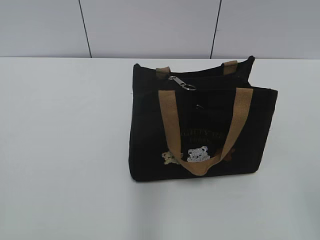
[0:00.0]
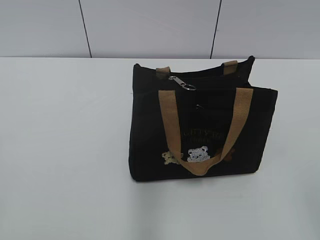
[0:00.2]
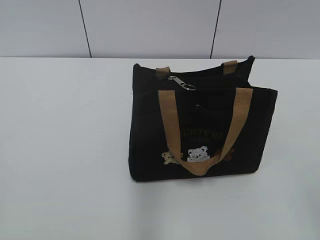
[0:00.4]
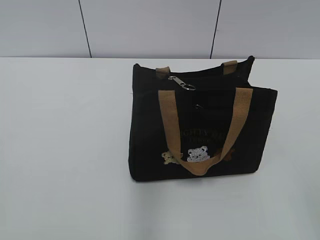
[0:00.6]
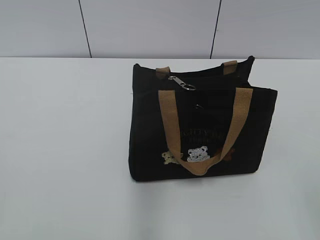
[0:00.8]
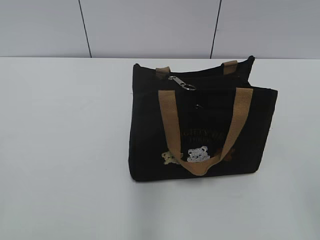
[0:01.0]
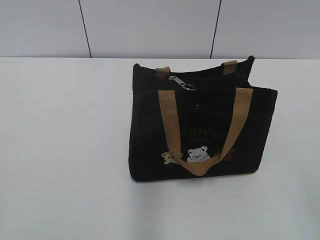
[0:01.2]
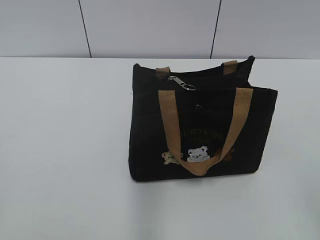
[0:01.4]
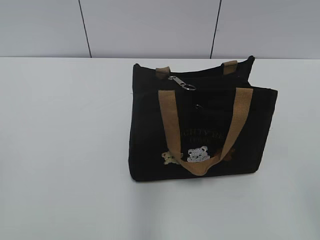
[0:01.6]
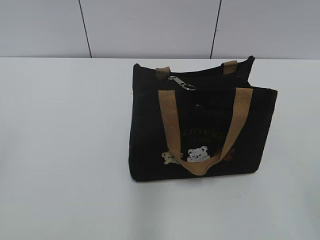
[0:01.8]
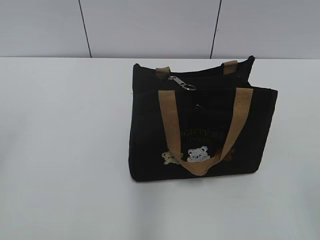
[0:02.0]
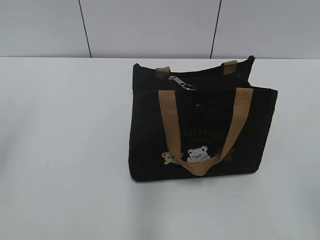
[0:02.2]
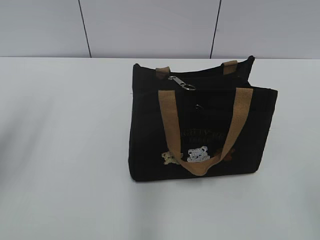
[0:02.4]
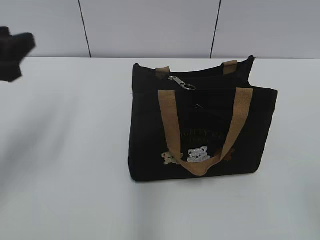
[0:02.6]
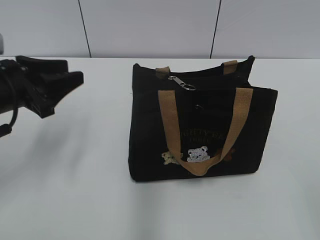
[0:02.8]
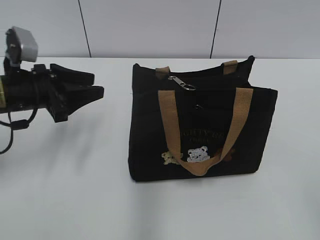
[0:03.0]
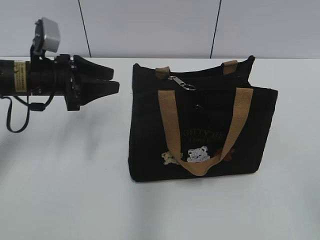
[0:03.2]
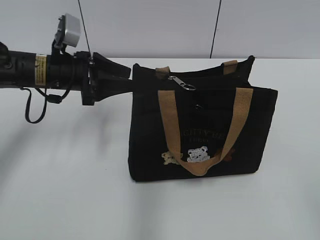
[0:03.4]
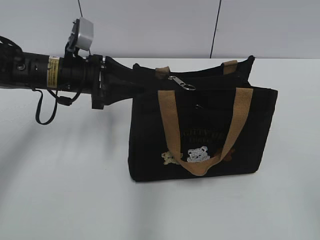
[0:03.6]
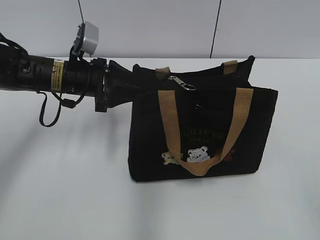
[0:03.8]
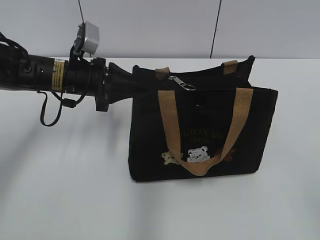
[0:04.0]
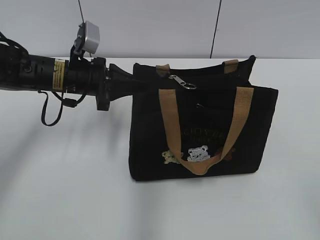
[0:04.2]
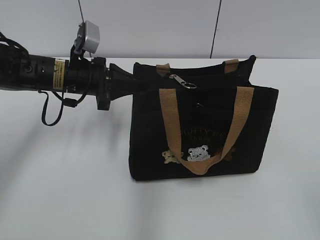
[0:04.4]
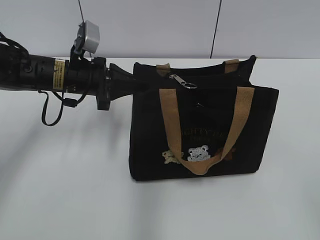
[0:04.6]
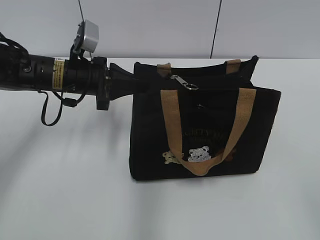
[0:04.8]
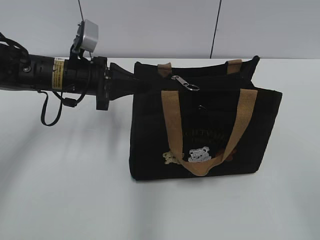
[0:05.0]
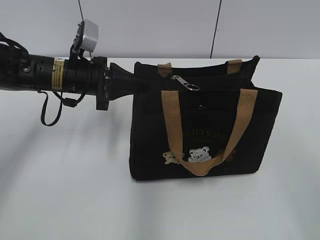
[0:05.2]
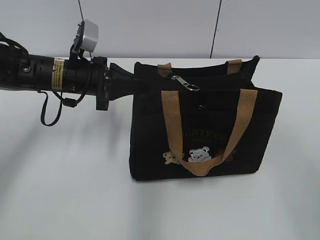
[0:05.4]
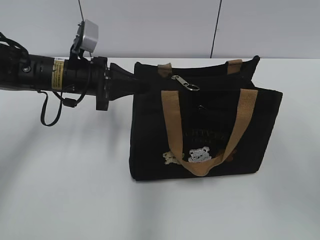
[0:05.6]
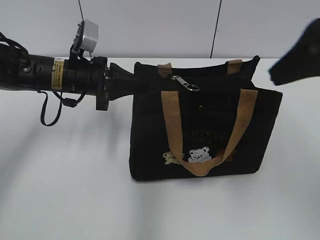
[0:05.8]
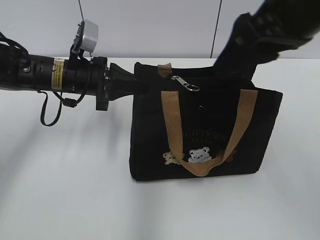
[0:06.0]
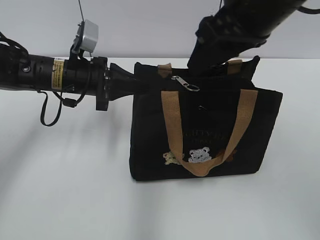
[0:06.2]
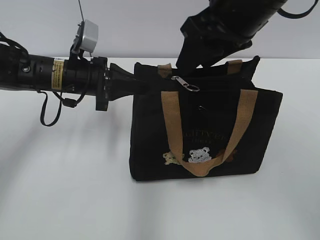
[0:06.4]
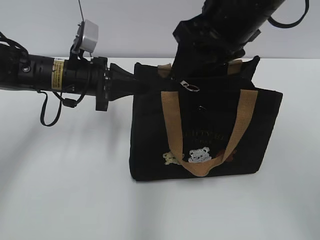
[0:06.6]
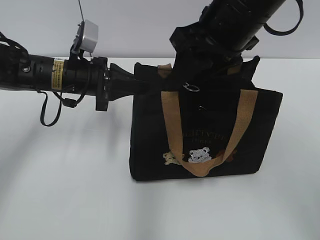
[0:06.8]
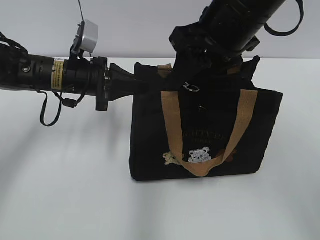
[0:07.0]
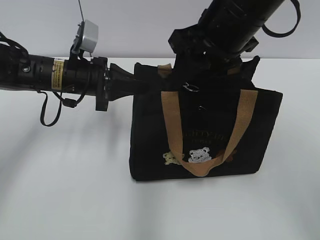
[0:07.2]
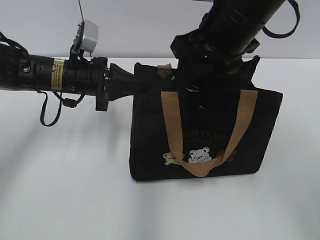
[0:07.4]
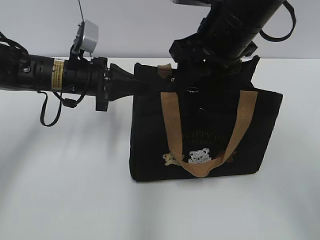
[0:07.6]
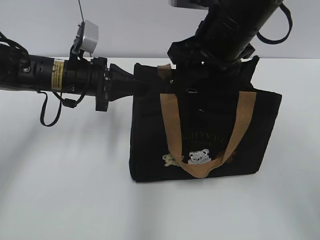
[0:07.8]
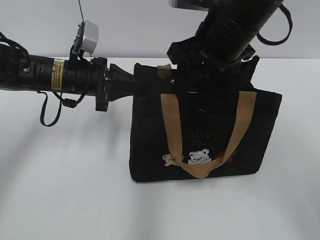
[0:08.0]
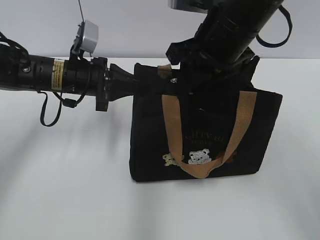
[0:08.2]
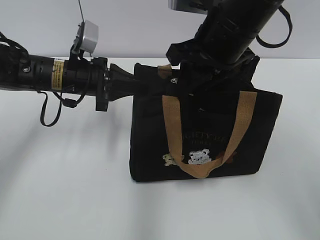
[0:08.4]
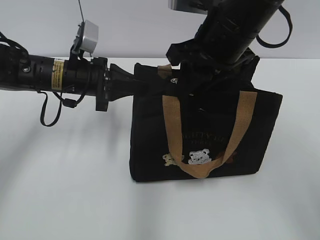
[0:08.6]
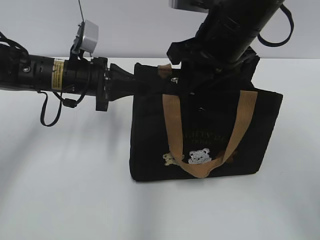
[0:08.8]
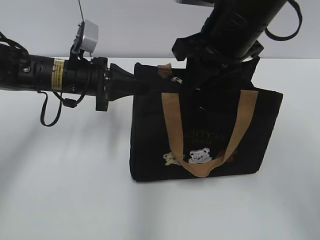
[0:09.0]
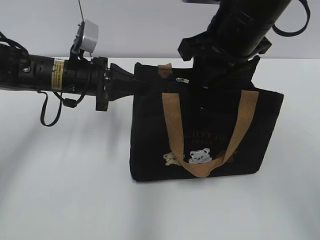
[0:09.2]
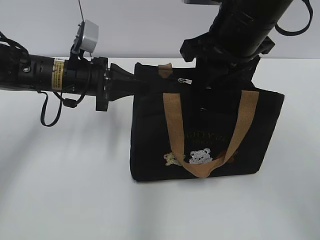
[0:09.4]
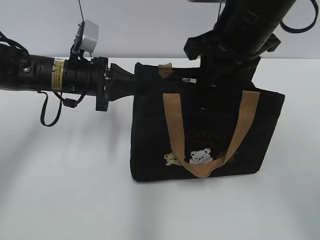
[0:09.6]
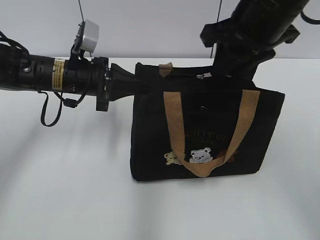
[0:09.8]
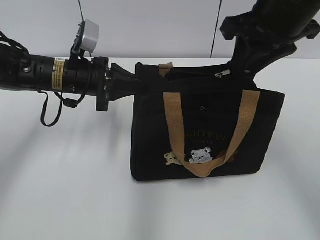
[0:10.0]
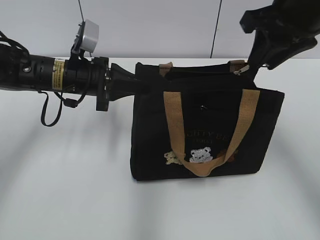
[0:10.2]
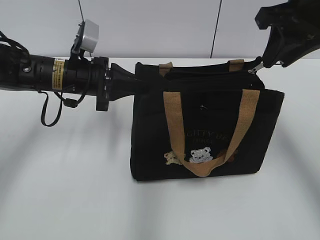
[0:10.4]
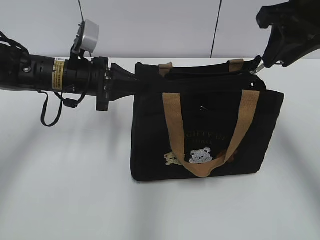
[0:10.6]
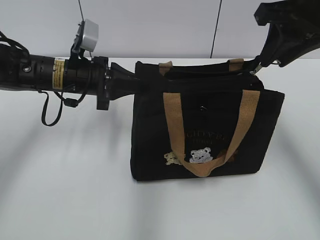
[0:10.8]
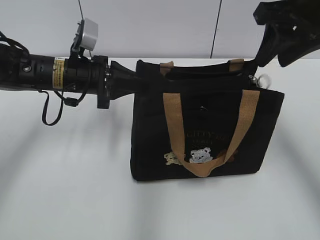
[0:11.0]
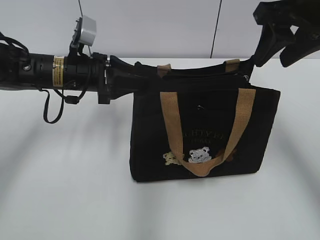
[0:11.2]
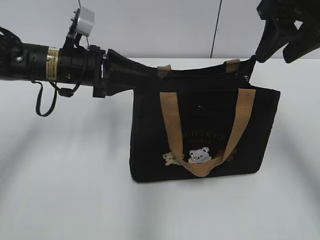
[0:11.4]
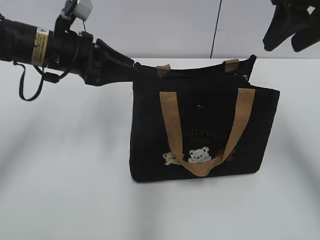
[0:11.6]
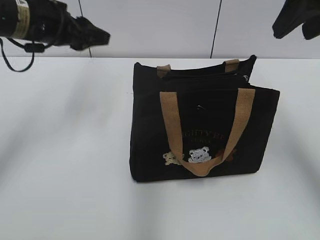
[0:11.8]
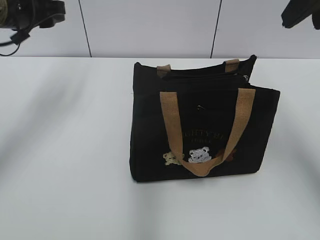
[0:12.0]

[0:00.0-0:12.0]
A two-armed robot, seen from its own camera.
Step, 0:00.0 to 0:10.8: Pull open the zipper with your right hand.
Step, 0:11.2 to 0:11.4: Hold the bag with your left hand.
0:01.6 to 0:03.0: The left gripper travels forward by approximately 30 cm.
0:03.0 to 0:04.4: The left gripper travels to the right and forward by roughly 10 cm, and closes its fingers.
0:04.4 to 0:06.0: The right gripper moves forward and to the left, about 30 cm.
0:06.0 to 0:07.6: The right gripper goes approximately 10 cm forward, to the left and downward.
0:07.6 to 0:09.0: The right gripper closes its fingers.
0:09.0 to 0:10.4: The right gripper travels to the right by some 10 cm.
0:10.4 to 0:12.0: The right gripper heads upward, covering some 5 cm, and opens its fingers. Meanwhile the left gripper moves upward and to the left, some 15 cm, and opens up.

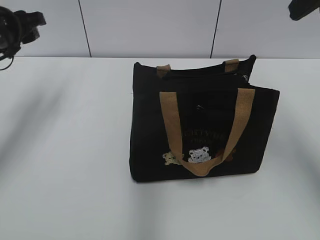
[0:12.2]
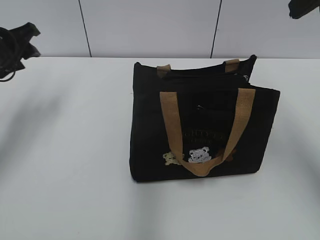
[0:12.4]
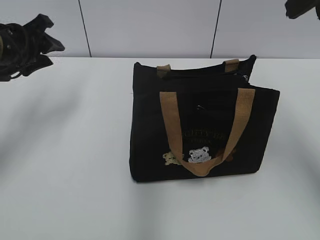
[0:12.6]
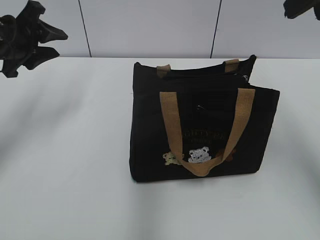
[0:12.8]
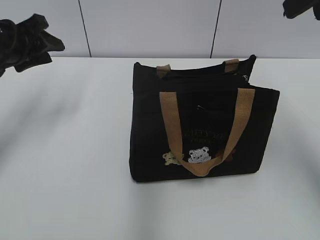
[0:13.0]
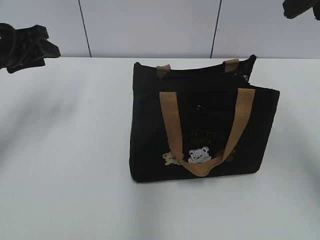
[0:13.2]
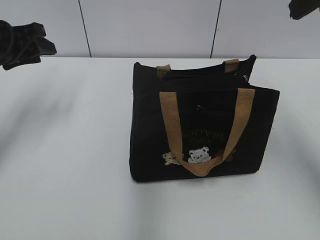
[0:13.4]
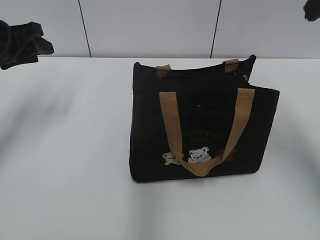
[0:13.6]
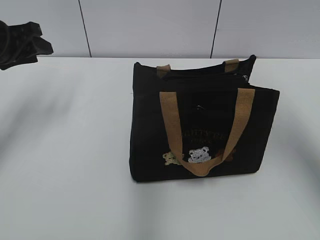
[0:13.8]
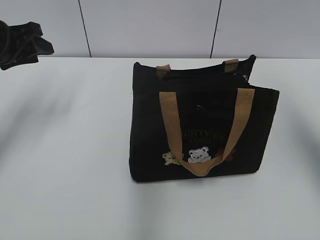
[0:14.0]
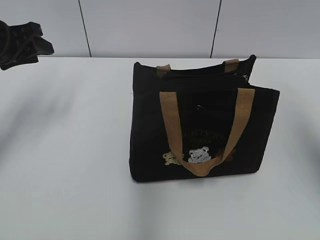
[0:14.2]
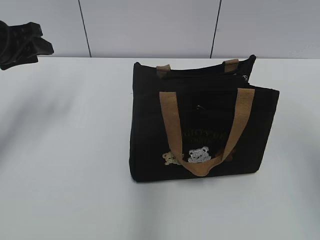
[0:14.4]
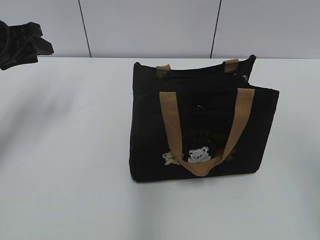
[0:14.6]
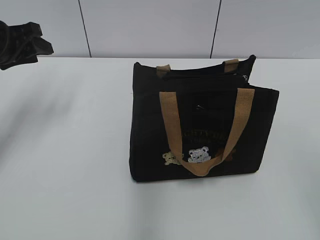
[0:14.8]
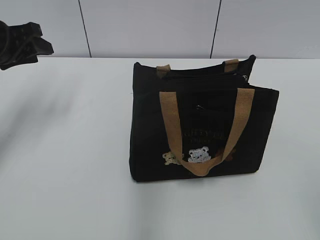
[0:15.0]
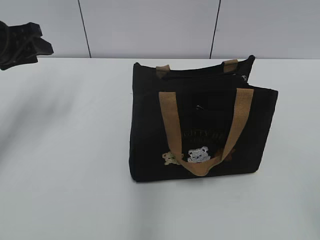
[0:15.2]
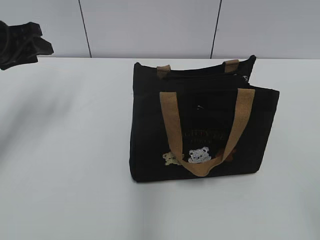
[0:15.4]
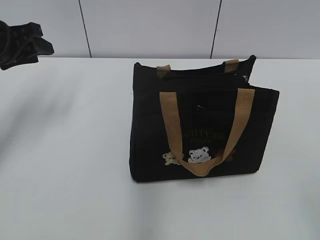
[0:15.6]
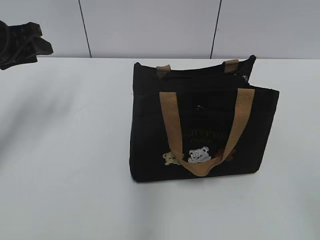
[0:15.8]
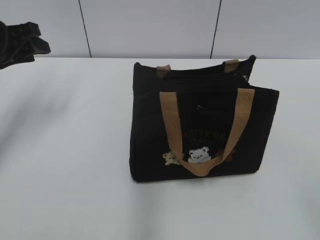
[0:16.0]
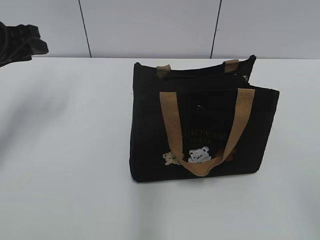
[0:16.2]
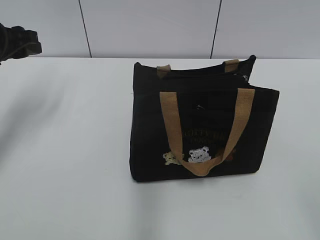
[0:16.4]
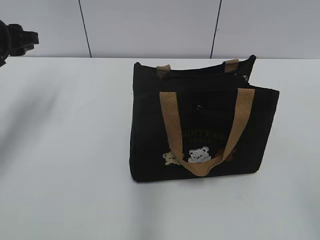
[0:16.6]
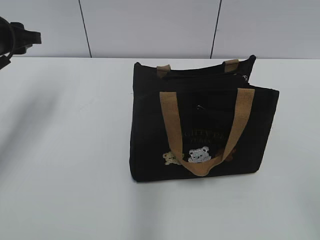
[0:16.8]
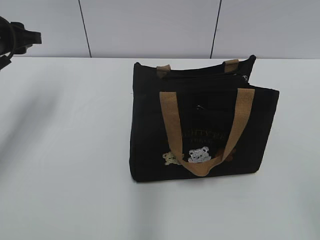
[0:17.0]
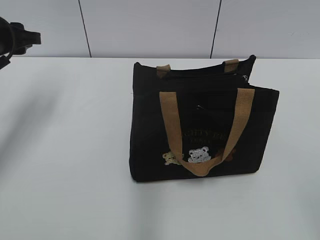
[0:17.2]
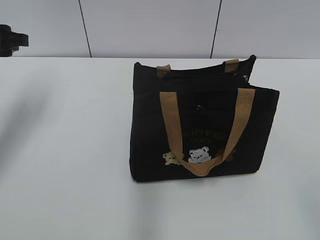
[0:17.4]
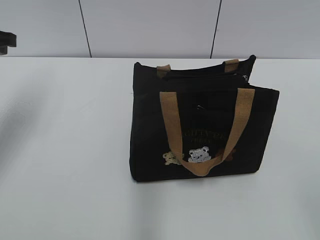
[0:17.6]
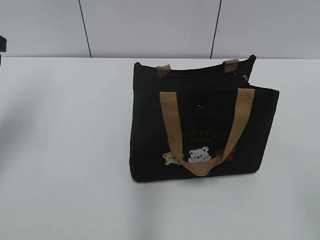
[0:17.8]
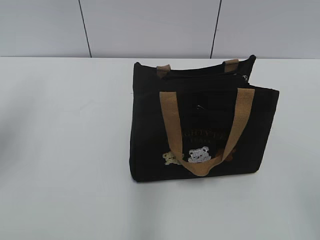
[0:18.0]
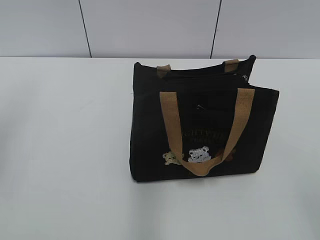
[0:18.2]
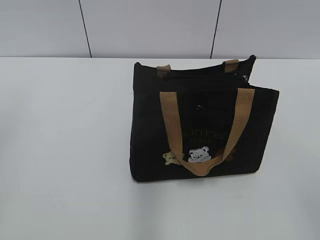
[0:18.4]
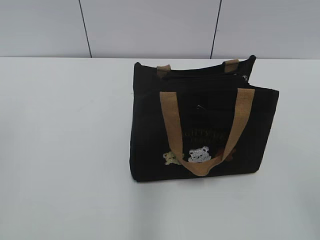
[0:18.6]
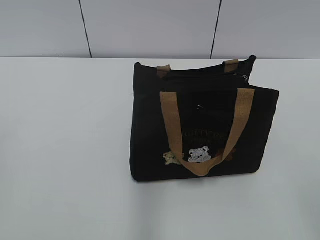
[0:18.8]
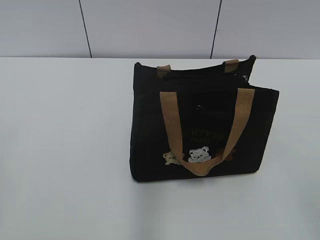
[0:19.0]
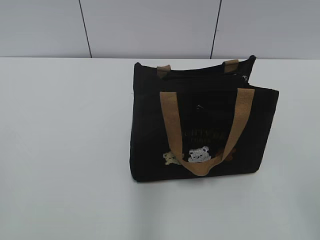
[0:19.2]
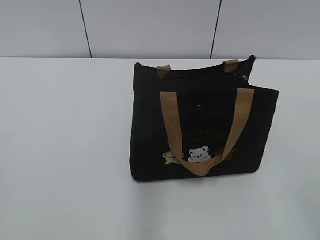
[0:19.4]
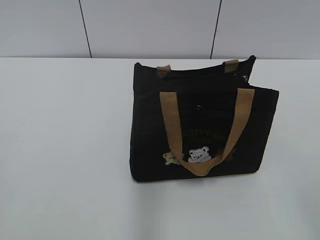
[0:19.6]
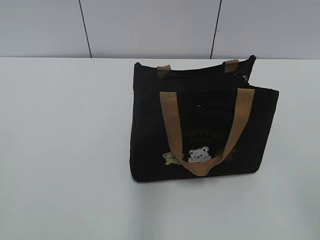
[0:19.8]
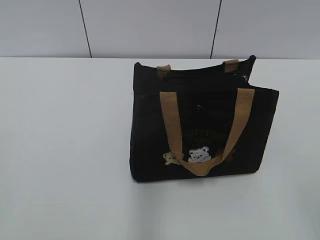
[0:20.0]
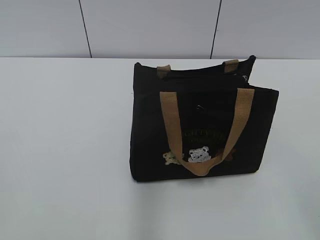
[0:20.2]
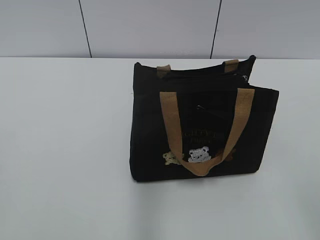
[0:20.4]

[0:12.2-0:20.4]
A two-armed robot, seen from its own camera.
0:13.8 to 0:15.4: The right gripper is displaced backward and downward by approximately 30 cm.
0:17.2 to 0:18.8: The left gripper moves backward, approximately 30 cm.
